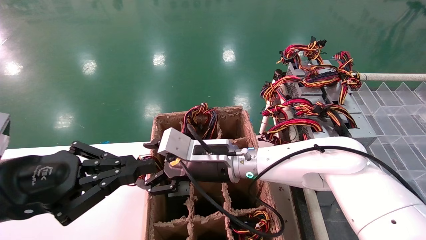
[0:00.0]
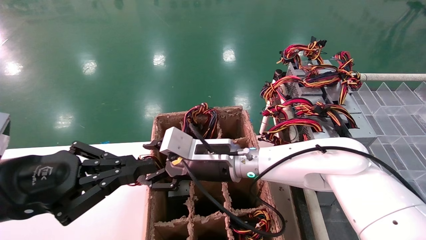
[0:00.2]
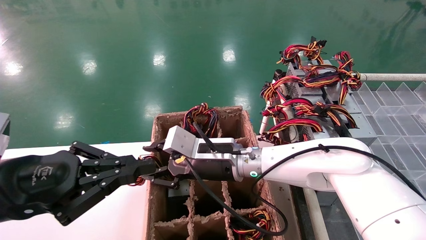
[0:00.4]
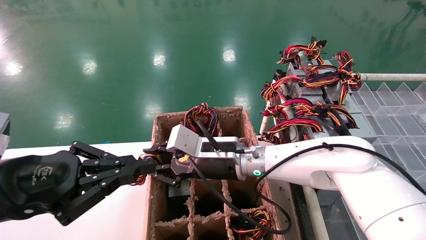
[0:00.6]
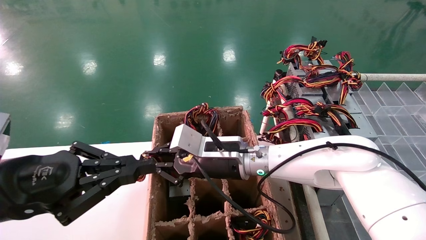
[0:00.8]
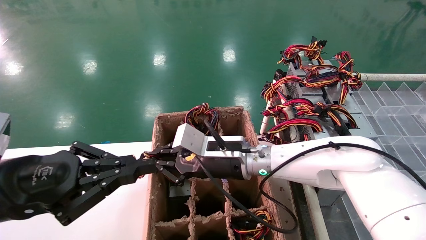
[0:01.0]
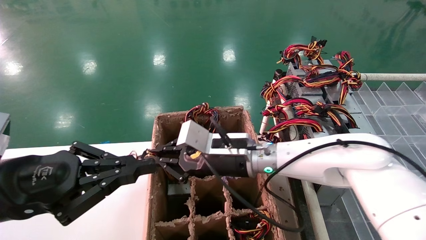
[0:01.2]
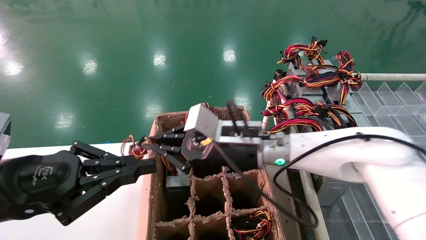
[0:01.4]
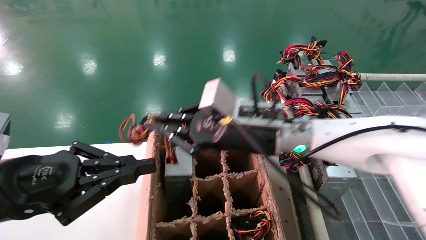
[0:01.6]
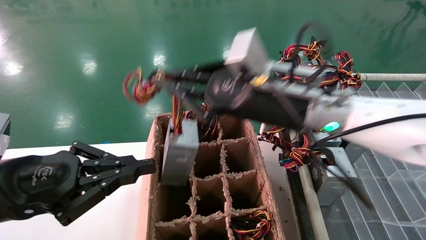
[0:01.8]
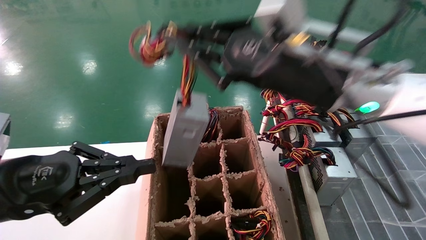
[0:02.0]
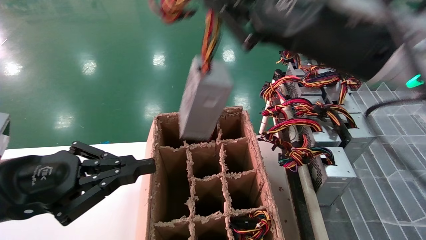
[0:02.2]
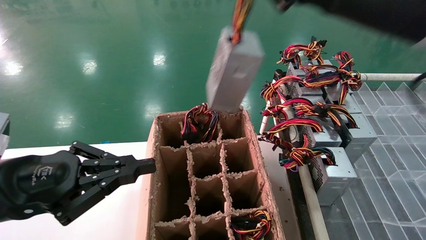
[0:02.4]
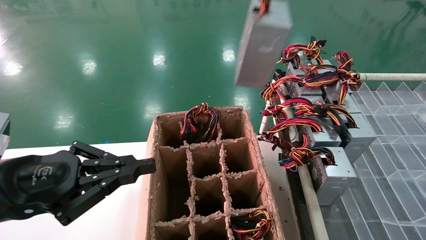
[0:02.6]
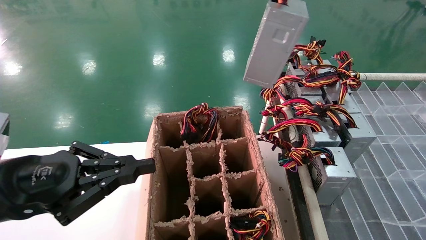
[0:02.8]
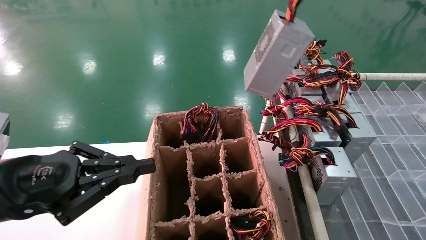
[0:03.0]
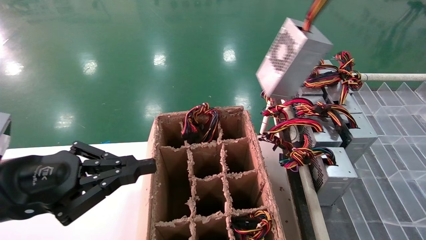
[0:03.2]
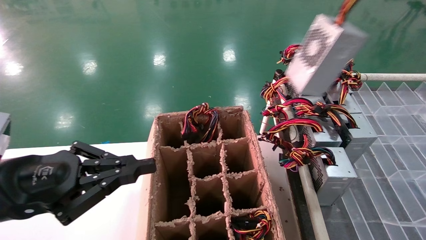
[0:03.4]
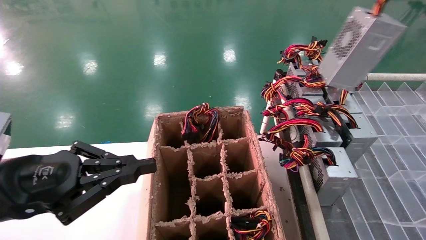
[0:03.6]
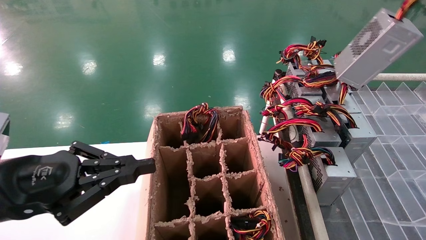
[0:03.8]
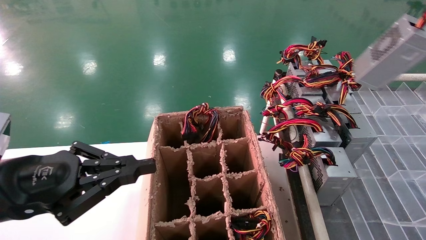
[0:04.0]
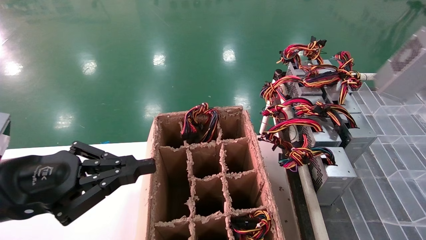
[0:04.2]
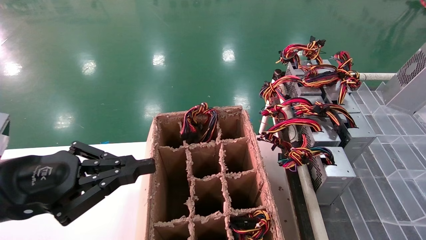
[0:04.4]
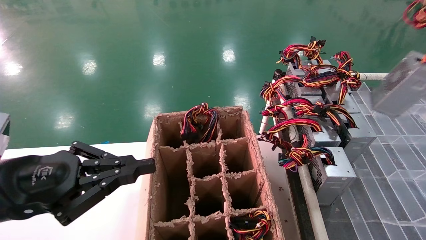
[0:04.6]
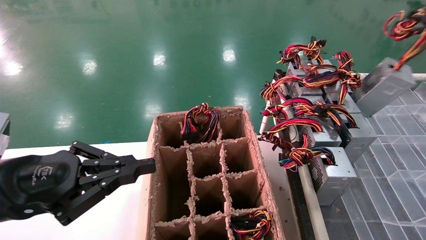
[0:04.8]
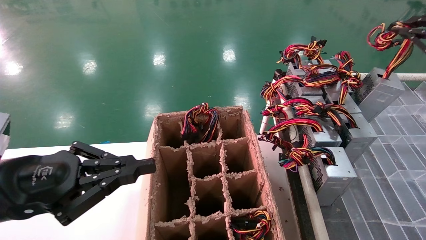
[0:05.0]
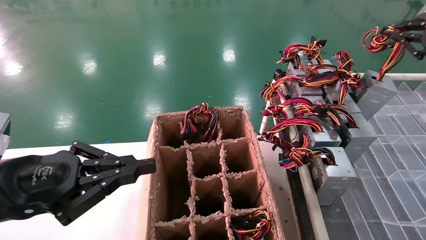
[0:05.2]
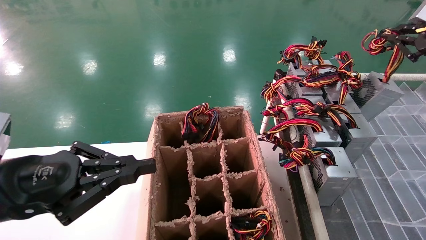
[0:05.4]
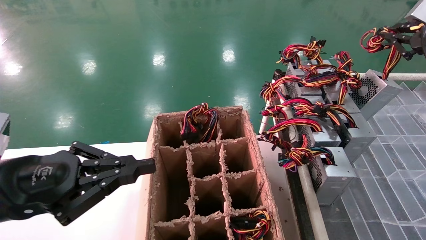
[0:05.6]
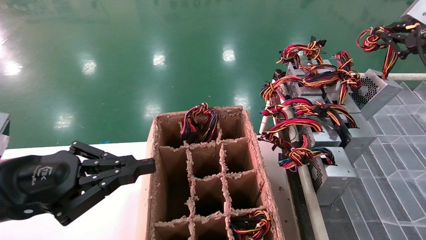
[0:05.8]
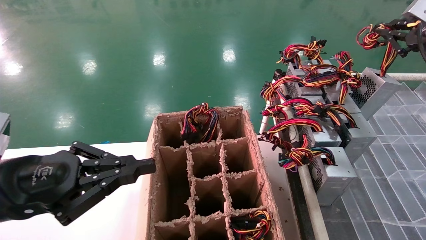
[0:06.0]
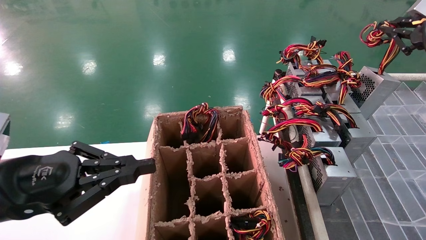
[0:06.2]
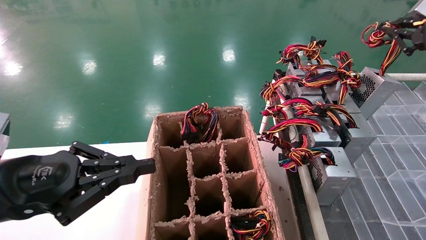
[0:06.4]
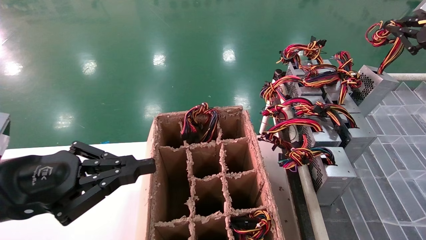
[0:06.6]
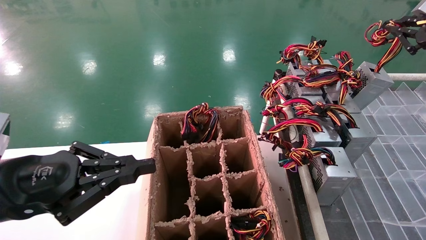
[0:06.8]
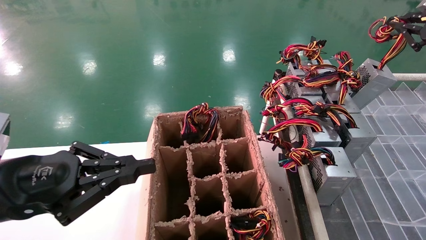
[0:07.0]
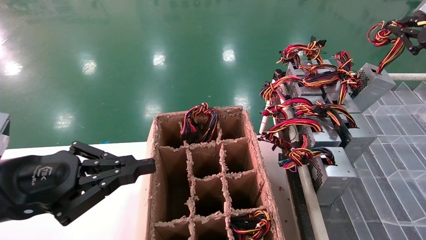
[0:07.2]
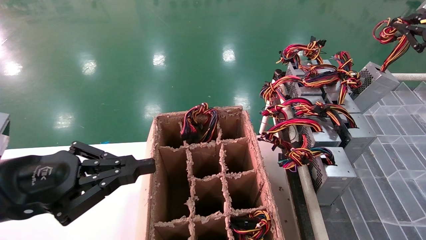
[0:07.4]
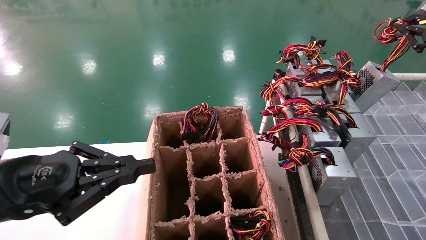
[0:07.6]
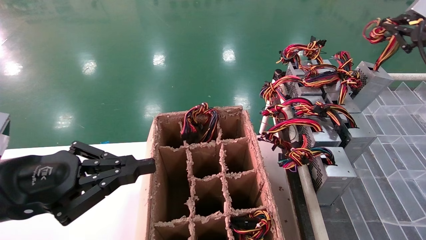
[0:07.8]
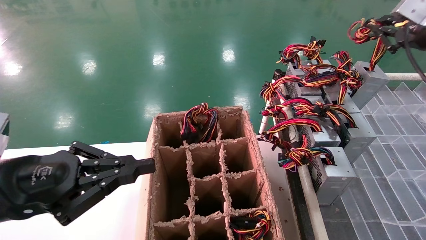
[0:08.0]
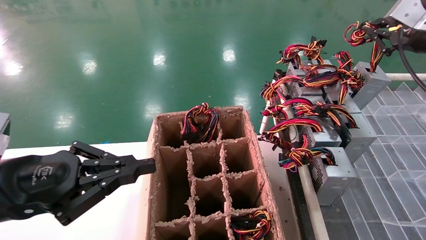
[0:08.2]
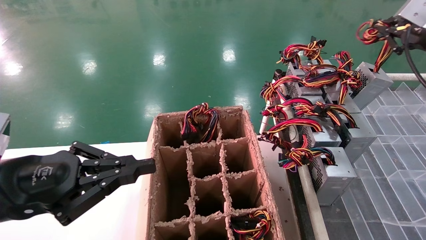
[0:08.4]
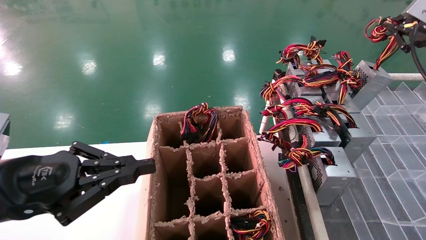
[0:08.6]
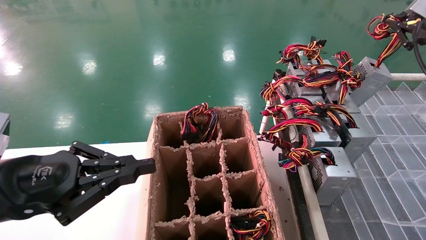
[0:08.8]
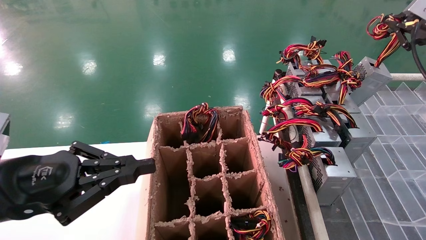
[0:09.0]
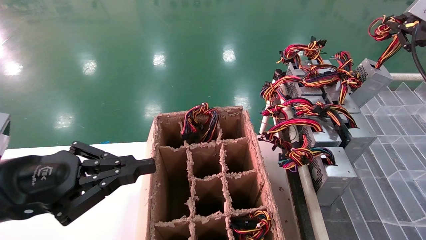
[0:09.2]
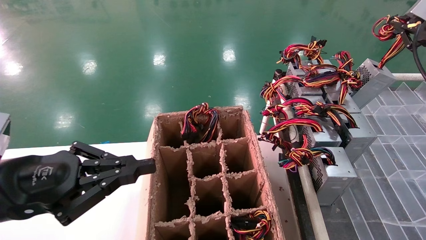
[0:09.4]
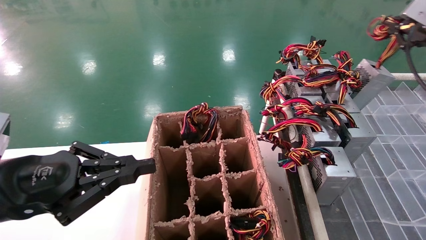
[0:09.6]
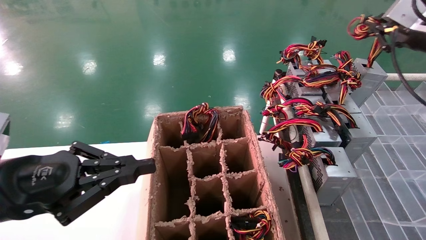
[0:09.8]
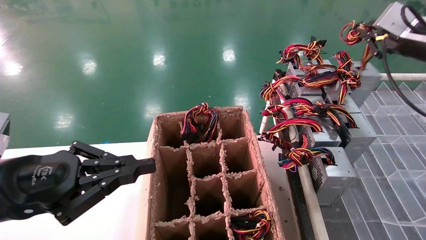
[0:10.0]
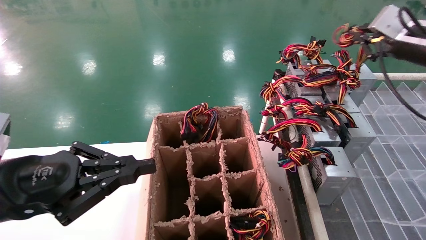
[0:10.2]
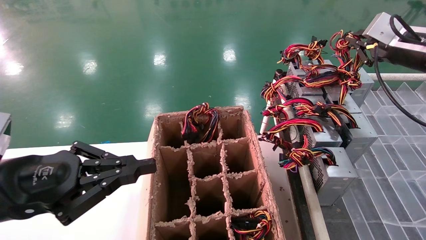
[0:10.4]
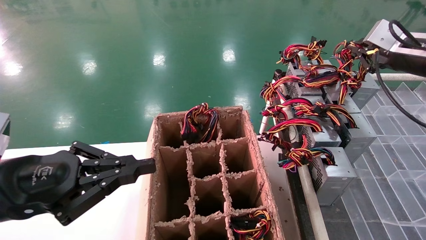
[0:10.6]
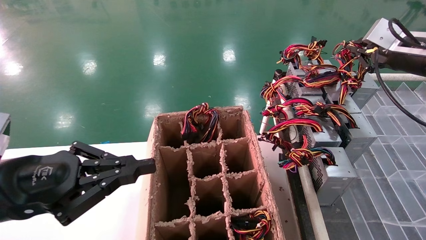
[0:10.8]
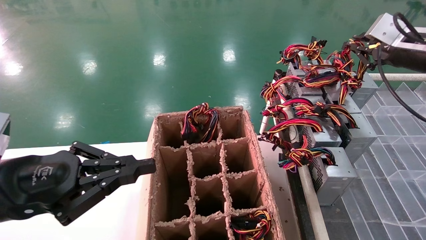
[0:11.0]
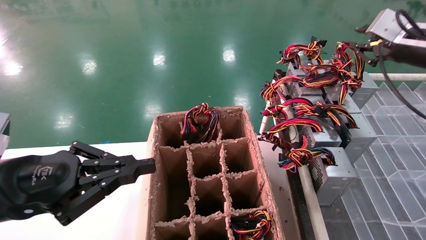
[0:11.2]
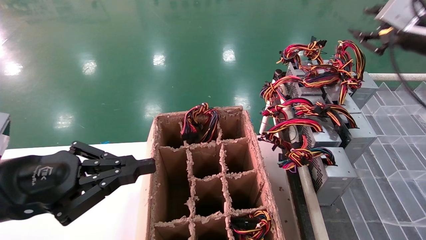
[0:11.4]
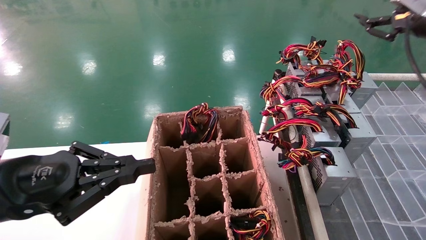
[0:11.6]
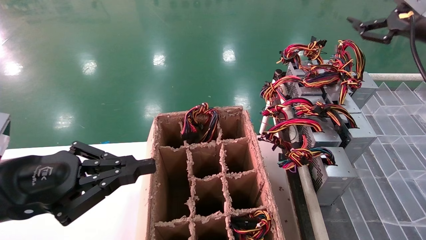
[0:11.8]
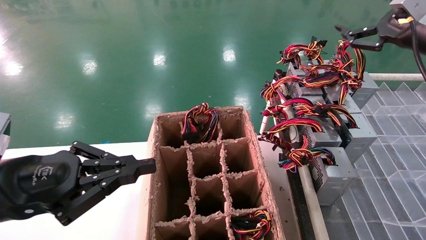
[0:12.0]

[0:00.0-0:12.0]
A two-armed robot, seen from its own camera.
Step, 0:01.2 to 0:11.4: Place the main unit power supply in the designated area.
0:00.0 to 0:01.6: The right gripper moves upward and to the right, approximately 10 cm, and closes its fingers.
0:01.6 to 0:03.0: The right gripper travels upward, to the right and backward by about 30 cm.
0:03.0 to 0:04.4: The right gripper goes approximately 20 cm to the right.
0:04.4 to 0:06.0: The right gripper goes roughly 15 cm forward.
0:06.0 to 0:09.0: The grippers make only small movements.
0:09.0 to 0:10.4: The right gripper moves about 5 cm.
0:10.4 to 0:12.0: The right gripper opens up.

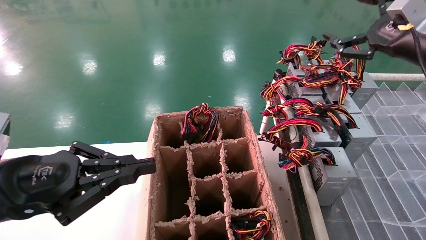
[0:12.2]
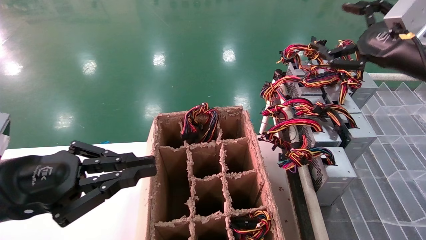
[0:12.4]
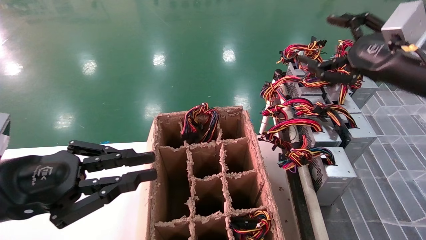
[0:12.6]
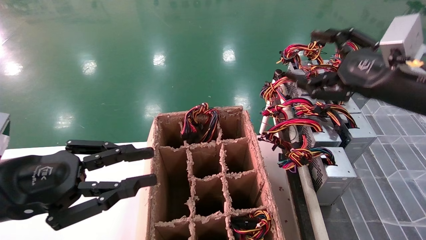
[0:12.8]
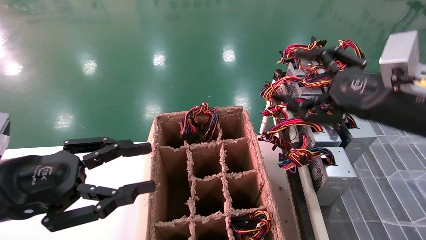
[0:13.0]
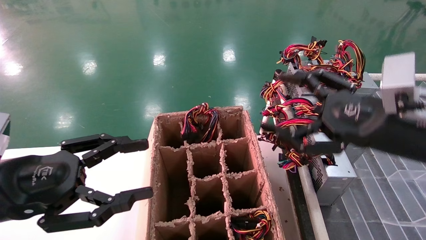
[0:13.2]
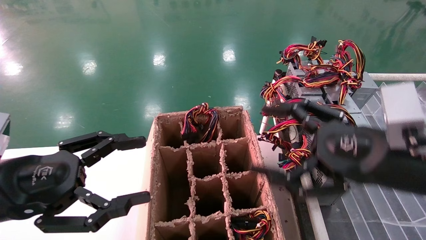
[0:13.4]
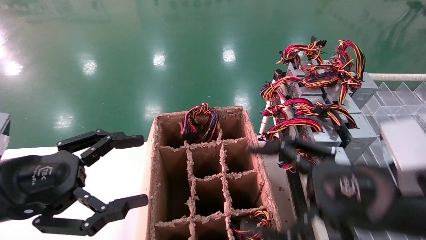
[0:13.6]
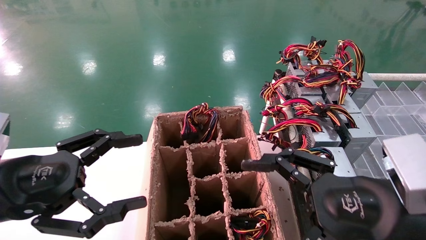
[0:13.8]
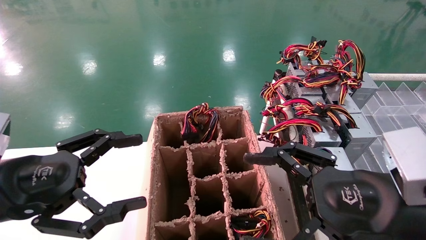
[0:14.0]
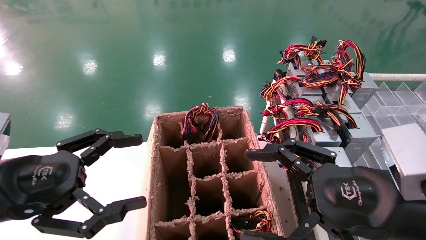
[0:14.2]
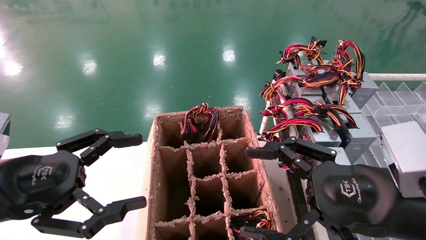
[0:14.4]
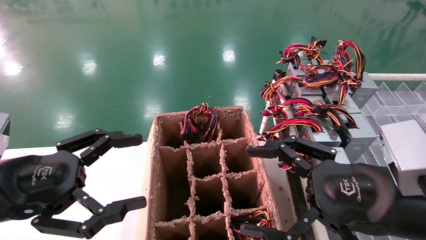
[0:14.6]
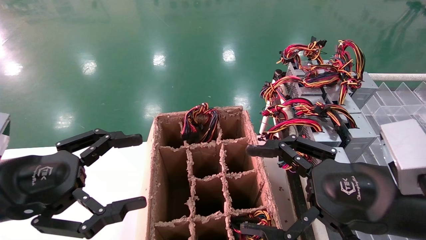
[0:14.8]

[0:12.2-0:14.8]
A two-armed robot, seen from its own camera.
0:12.2 to 0:13.4: The right gripper is displaced backward, to the left and downward by roughly 20 cm. The left gripper opens its fingers.
0:13.4 to 0:14.8: The grippers stay close to where they were, moving slightly.
